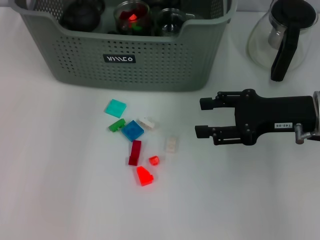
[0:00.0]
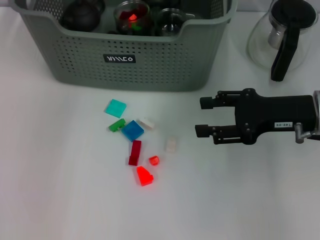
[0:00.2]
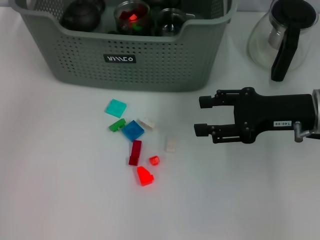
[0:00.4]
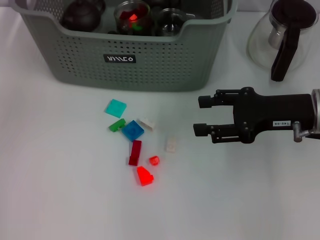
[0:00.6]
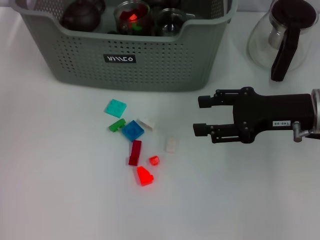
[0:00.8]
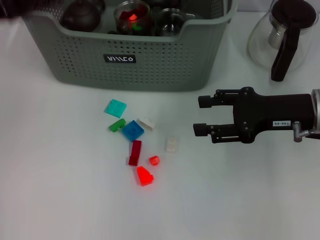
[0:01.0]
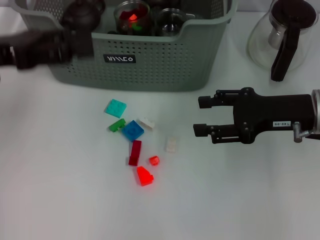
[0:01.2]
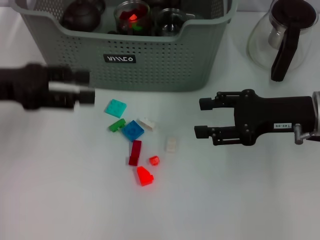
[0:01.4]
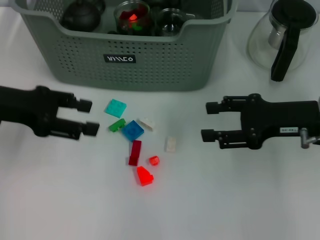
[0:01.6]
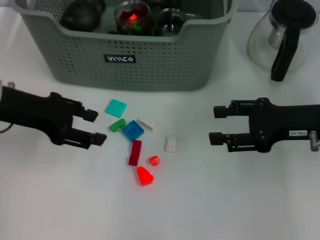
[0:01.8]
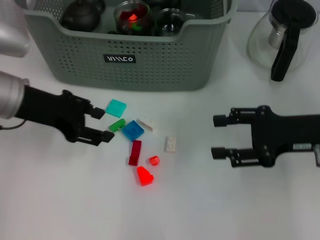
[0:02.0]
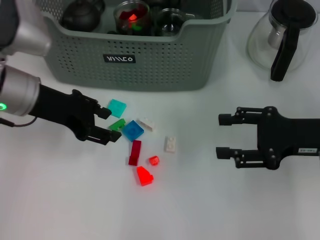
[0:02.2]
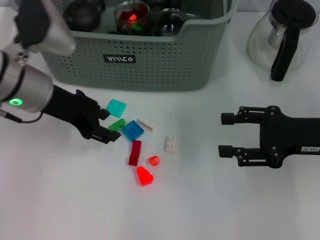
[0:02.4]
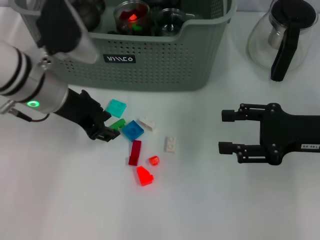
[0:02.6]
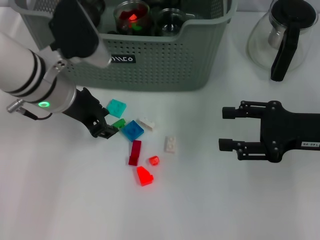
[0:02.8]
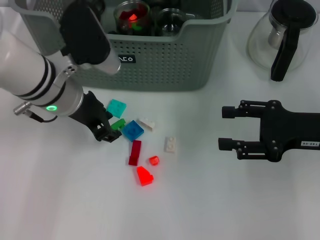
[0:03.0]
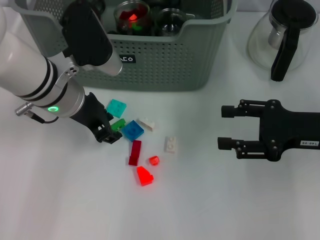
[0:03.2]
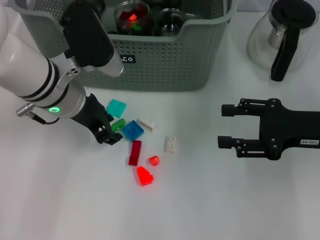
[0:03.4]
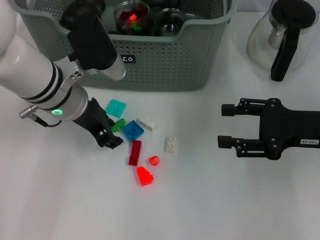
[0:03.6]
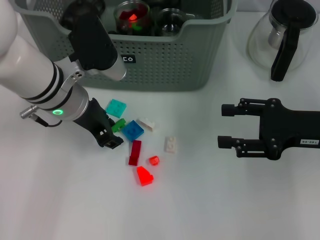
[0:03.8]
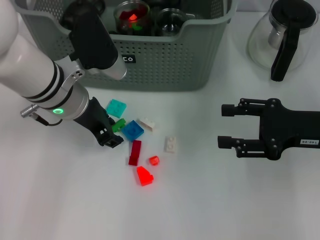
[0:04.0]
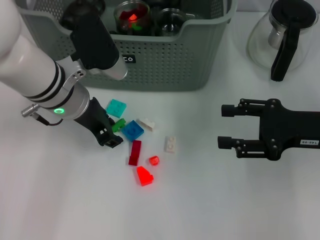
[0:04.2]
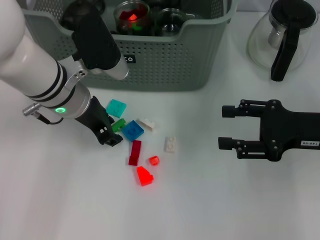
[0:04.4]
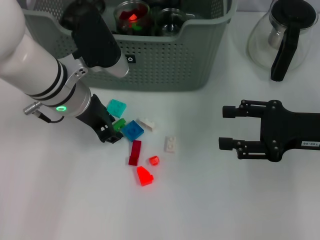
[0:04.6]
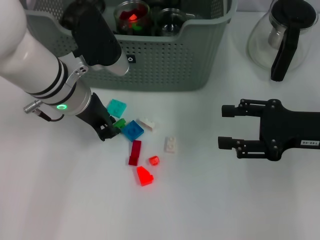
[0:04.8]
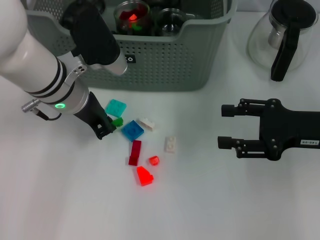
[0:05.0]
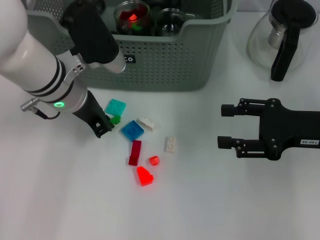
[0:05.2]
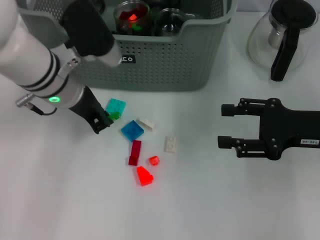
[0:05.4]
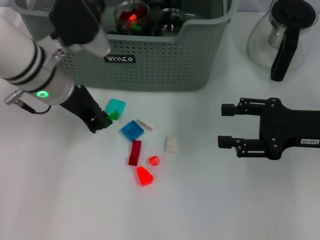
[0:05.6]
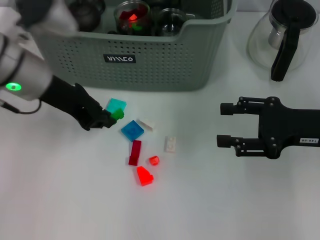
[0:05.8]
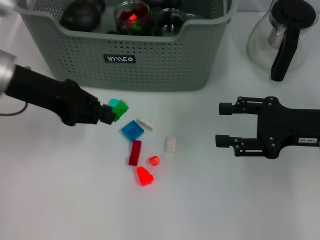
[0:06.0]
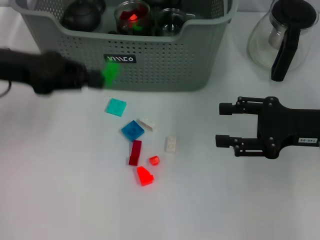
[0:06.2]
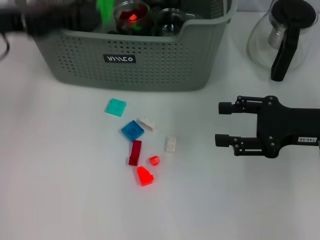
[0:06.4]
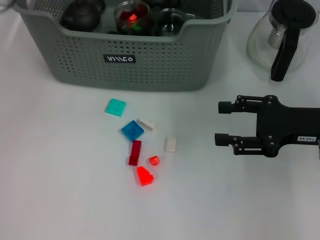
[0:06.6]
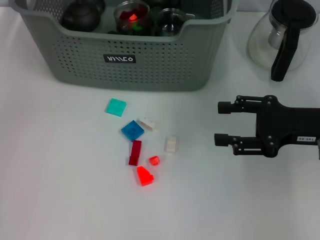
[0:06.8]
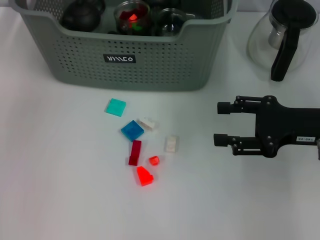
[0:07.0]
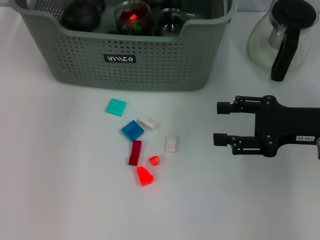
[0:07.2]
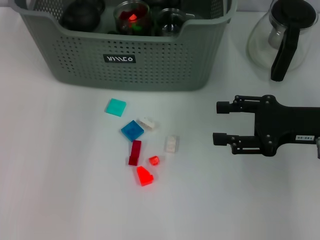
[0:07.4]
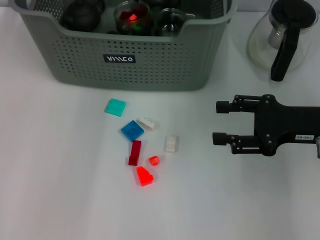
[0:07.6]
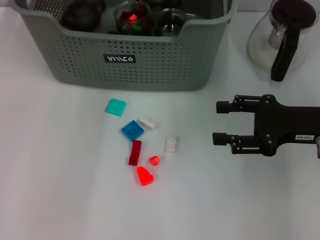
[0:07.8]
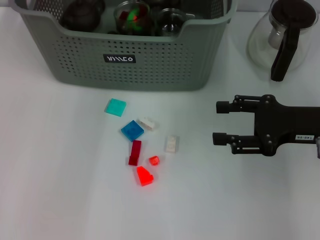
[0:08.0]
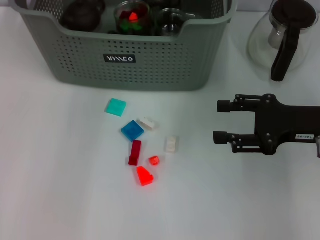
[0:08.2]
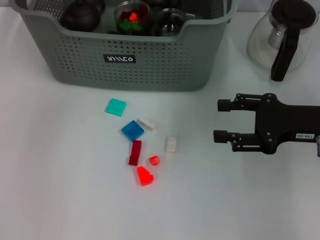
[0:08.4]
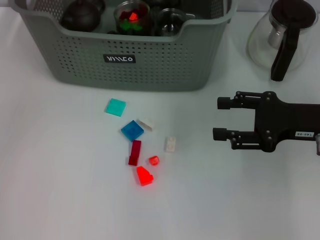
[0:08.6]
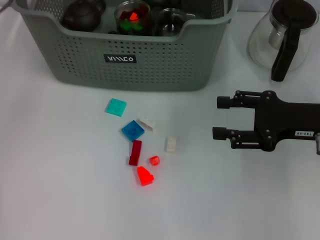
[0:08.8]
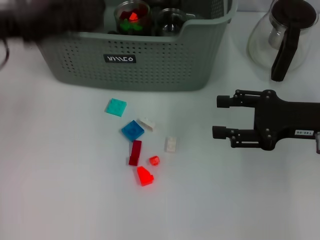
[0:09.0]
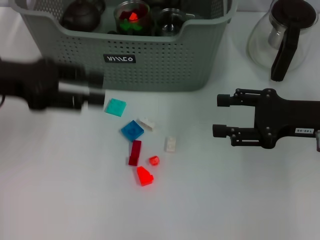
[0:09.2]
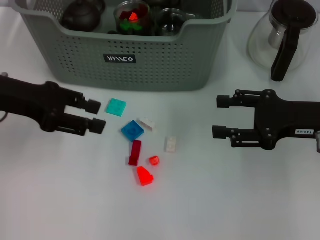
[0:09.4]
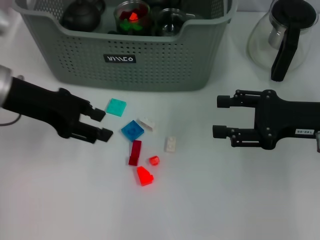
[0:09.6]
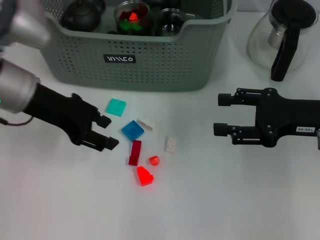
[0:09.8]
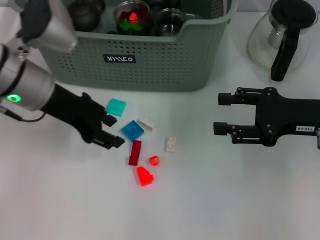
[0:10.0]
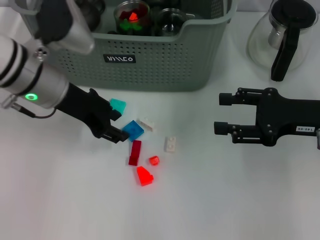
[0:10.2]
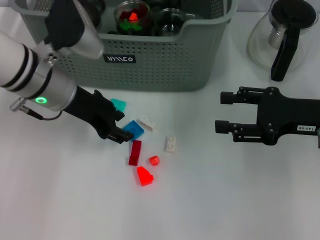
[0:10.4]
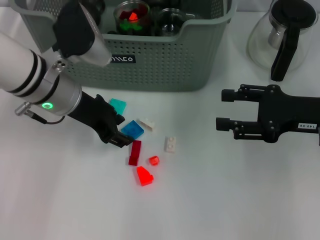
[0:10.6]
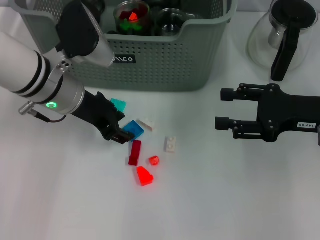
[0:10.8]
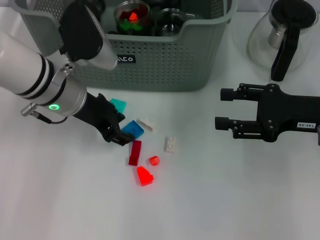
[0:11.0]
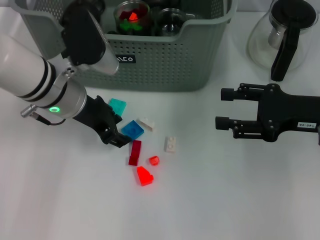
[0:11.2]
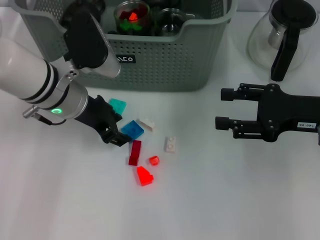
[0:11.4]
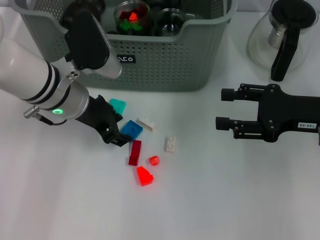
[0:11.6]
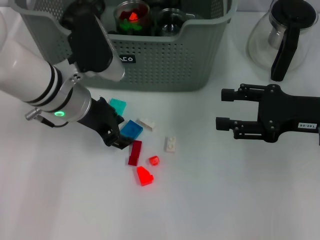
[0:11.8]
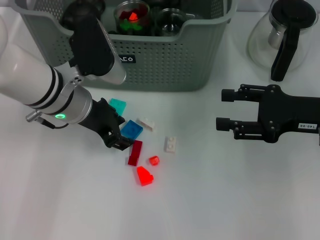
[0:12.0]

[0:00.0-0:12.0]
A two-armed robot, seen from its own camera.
Task of the whole recording: pick up the teacup on the table and place it into the storage bin, pick up the block on the table and place it into the storage bin.
Step, 0:00.0 to 0:05.0: Grasp the green block with left gripper.
Step, 0:05.2 to 0:08.2: Place the green block in the storage box with left gripper.
0:00.0 to 0:01.6: The left gripper goes about 25 cm backward, to the left and downward, and opens up.
0:01.6 to 0:03.0: The left gripper shifts some 15 cm to the right, and closes up.
0:03.0 to 0:04.4: The grippers make only small movements.
0:04.4 to 0:06.0: The left gripper moves to the left and upward, some 10 cm, and closes up.
0:06.0 to 0:07.6: The left gripper goes some 20 cm forward, to the right and upward.
0:07.6 to 0:09.0: The left gripper travels to the left and backward by about 25 cm, and opens its fingers.
0:09.0 to 0:10.4: The left gripper travels to the right and downward by approximately 10 cm.
0:10.4 to 0:12.0: The grippers move only a little.

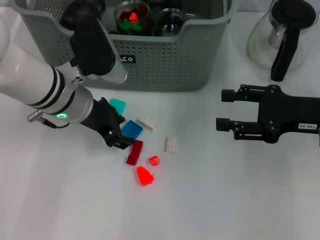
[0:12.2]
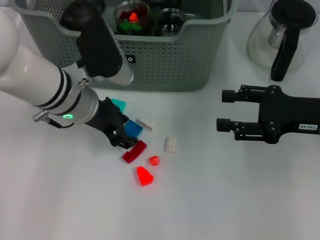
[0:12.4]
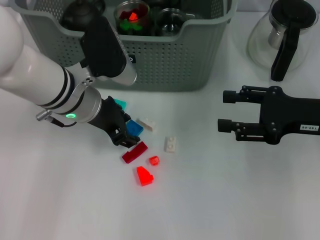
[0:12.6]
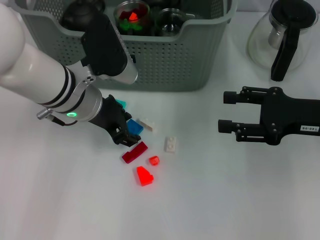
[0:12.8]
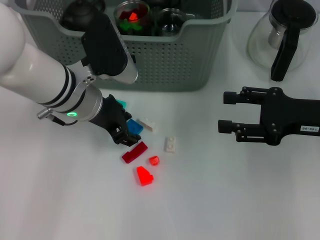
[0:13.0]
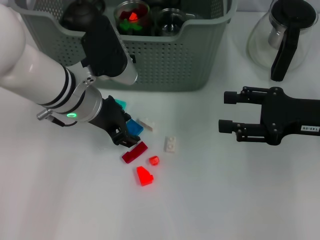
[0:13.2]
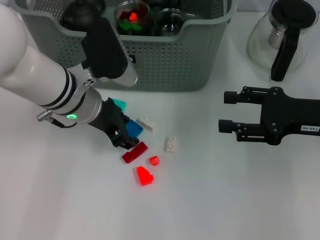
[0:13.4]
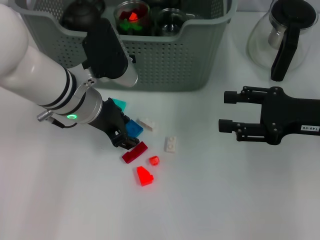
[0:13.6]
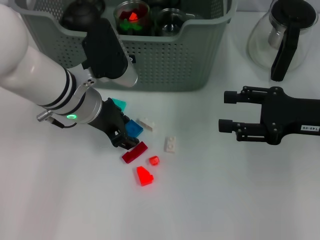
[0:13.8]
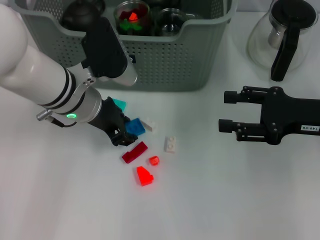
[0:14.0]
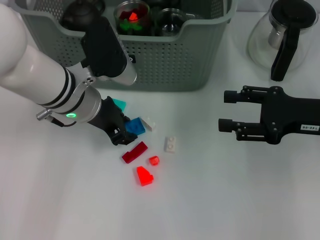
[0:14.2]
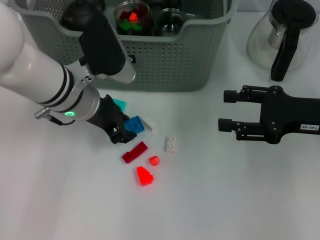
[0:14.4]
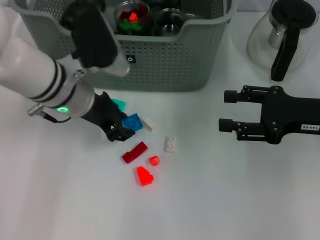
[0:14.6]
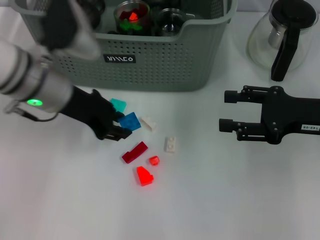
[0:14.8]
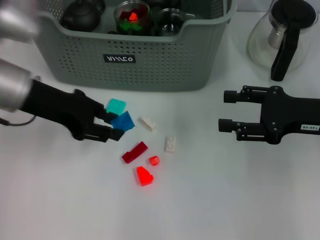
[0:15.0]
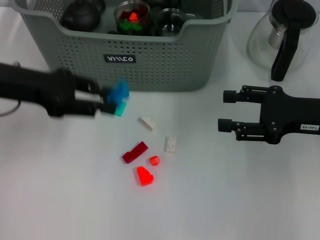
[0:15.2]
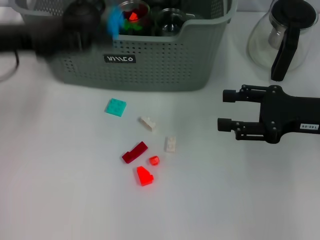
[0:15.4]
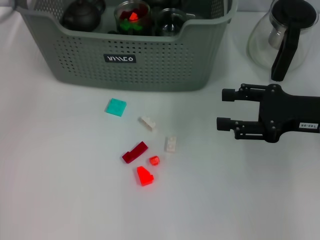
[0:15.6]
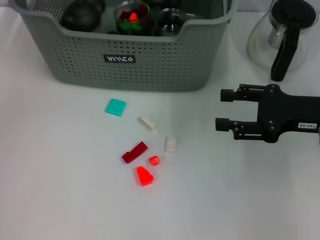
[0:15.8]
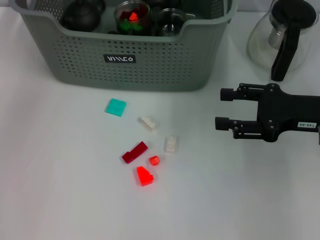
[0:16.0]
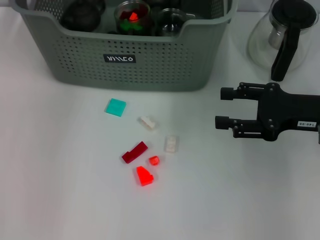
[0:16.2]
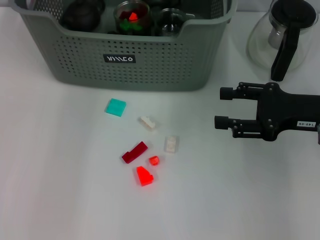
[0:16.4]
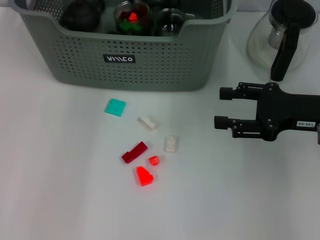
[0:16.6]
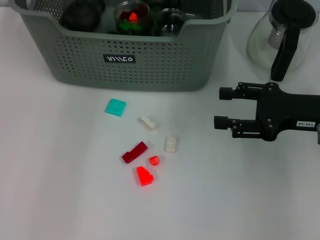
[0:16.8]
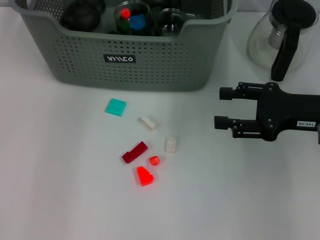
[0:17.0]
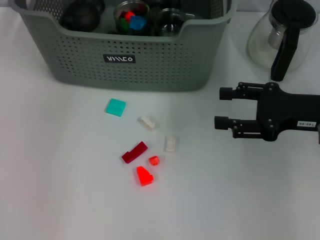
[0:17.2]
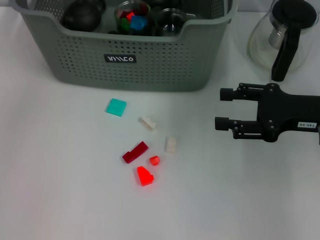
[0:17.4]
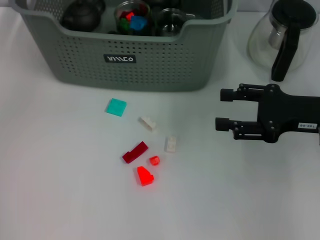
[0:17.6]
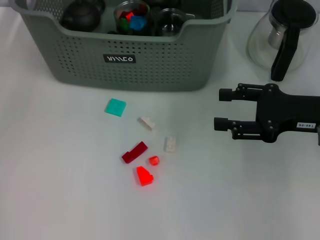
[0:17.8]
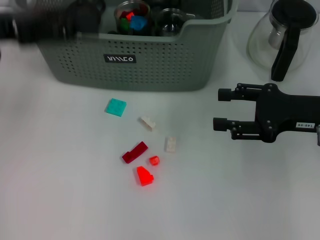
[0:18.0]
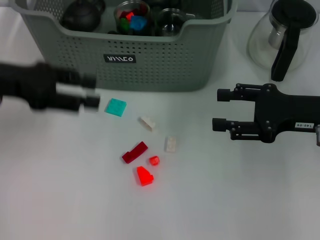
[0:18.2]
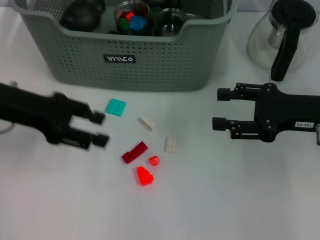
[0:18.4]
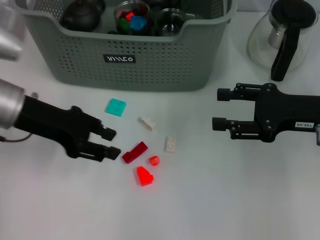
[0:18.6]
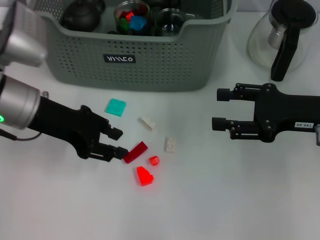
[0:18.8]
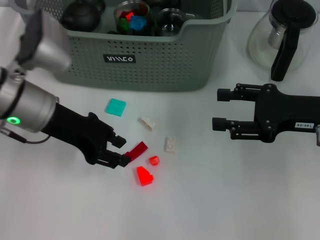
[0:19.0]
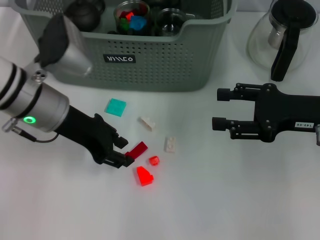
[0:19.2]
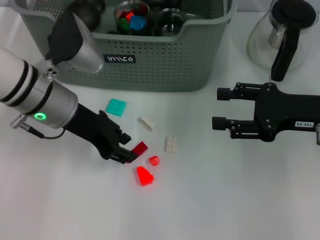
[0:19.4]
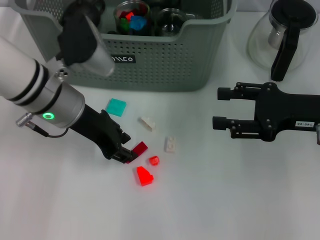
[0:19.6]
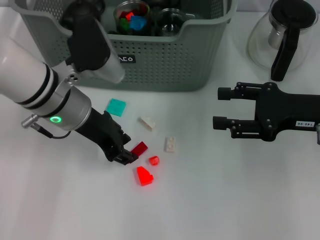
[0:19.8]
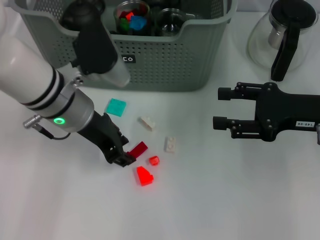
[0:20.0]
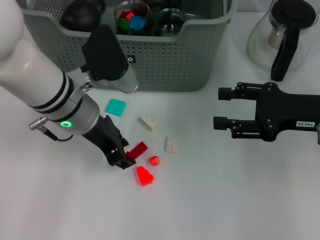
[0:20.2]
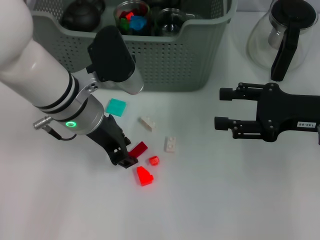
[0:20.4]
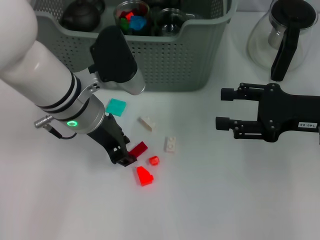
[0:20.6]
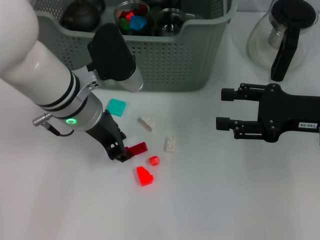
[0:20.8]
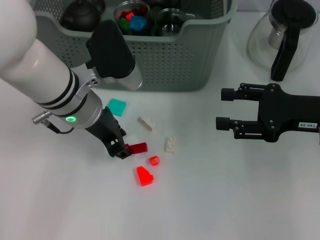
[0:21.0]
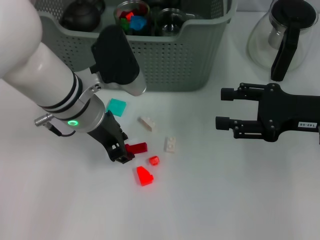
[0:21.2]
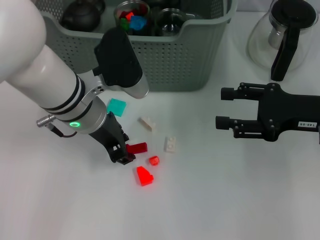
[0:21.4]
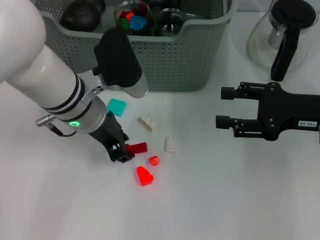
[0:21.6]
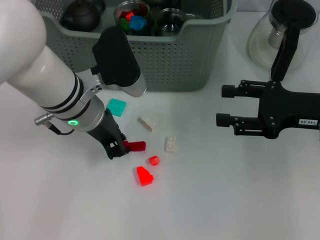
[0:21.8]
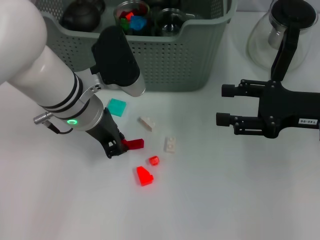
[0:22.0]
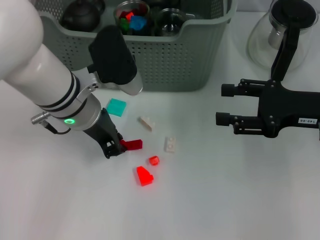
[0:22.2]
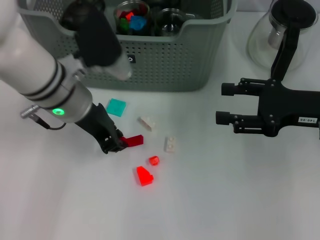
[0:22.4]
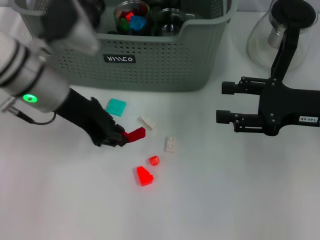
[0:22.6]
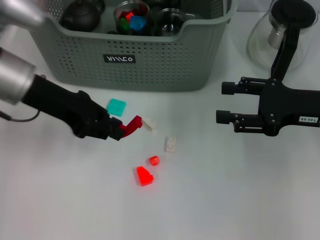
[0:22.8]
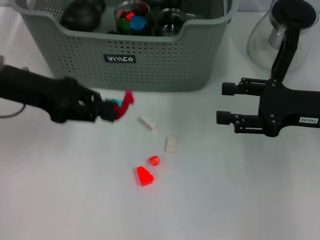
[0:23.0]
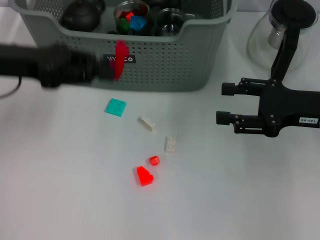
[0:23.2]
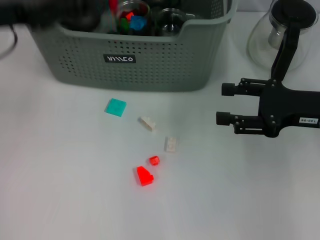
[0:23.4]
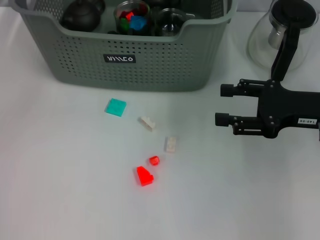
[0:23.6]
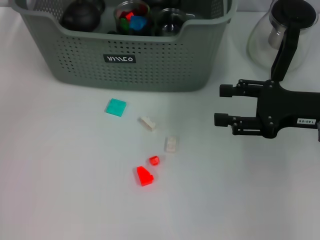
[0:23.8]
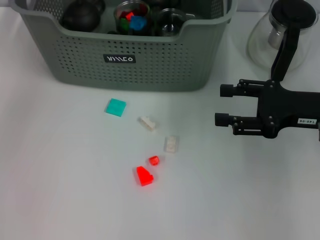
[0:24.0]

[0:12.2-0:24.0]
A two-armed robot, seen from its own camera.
Task of the whole recording: pick up the teacup on the table and place it into the storage bin, pick up the block on the table and place it into the storage bin.
Step, 0:12.2 to 0:14.2: Grasp the dark blue block with left gripper.
Step, 0:14.4 to 0:17.0: Place the dark blue block in the storage box with left gripper.
Step, 0:17.2 to 0:22.0: Grasp the red block with left gripper.
0:12.2 to 0:13.6: Neither gripper changes place.
0:13.6 to 0:15.2: The left gripper moves to the left and upward, about 15 cm.
0:15.2 to 0:16.6: The left gripper heads forward and to the right, covering some 20 cm.
0:16.6 to 0:18.2: The left gripper moves backward and to the left, approximately 25 cm.
0:18.2 to 0:19.6: The left gripper shifts roughly 15 cm to the right.
0:19.6 to 0:21.0: The grippers stay close to where they were, moving slightly.
0:21.0 to 0:22.6: The left gripper moves roughly 5 cm.
0:22.6 to 0:24.0: The left gripper heads upward and forward, covering some 20 cm.
